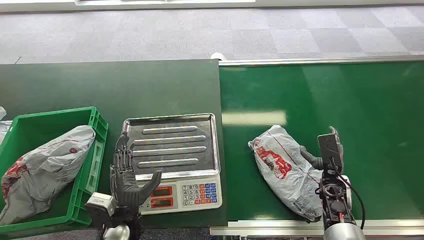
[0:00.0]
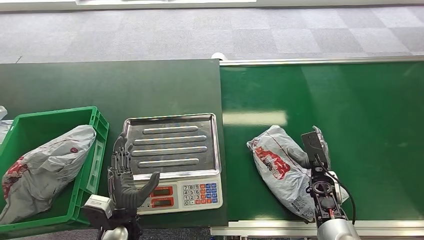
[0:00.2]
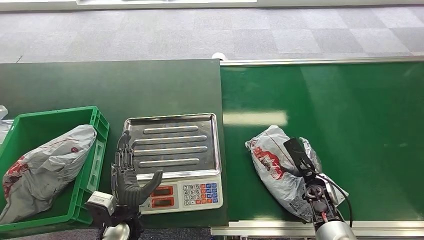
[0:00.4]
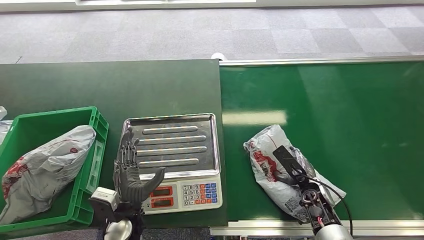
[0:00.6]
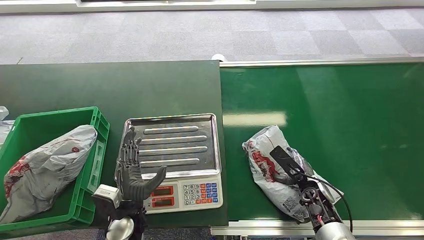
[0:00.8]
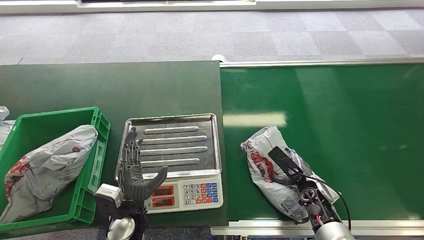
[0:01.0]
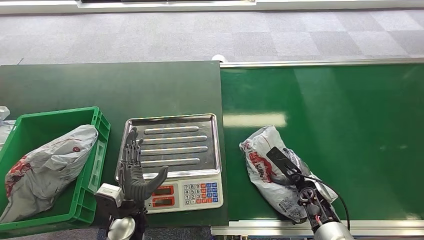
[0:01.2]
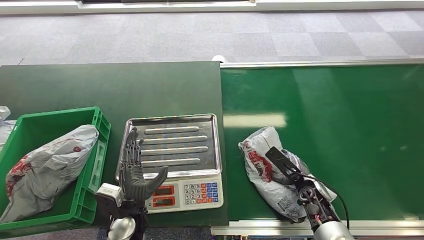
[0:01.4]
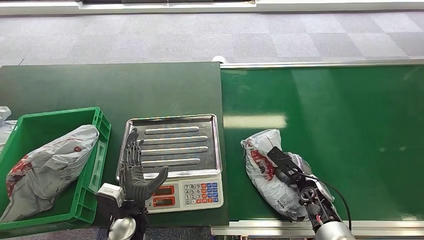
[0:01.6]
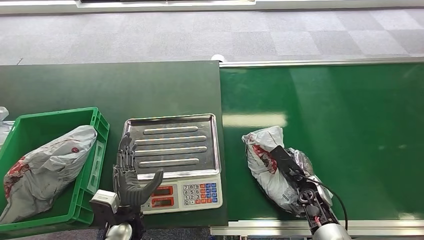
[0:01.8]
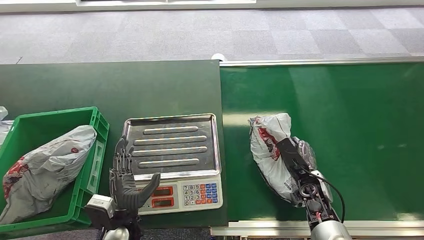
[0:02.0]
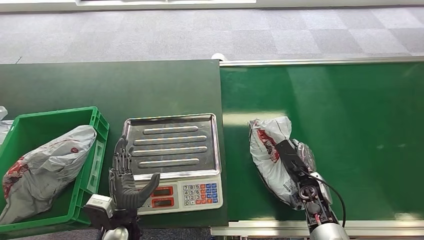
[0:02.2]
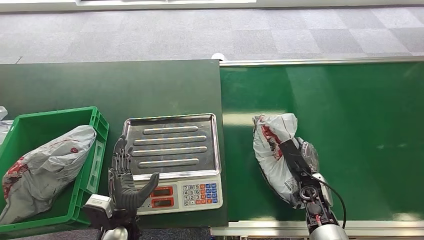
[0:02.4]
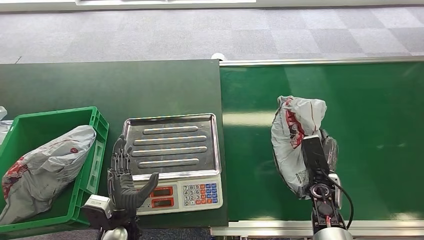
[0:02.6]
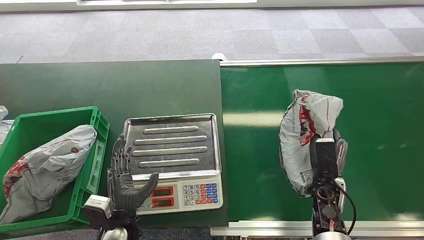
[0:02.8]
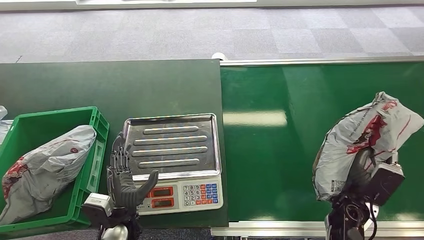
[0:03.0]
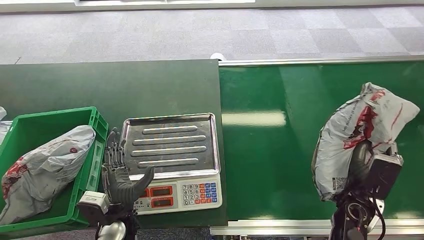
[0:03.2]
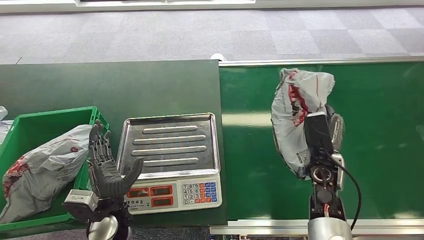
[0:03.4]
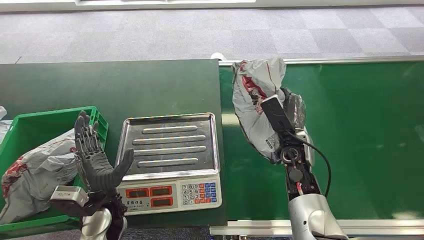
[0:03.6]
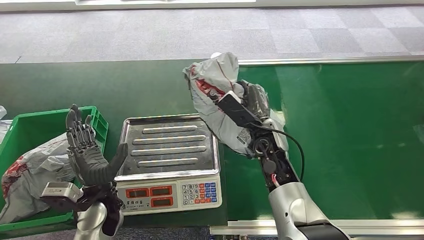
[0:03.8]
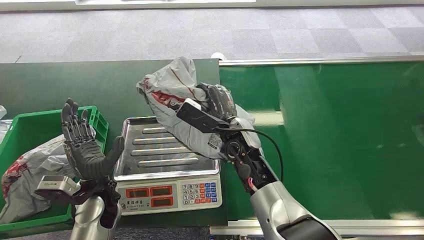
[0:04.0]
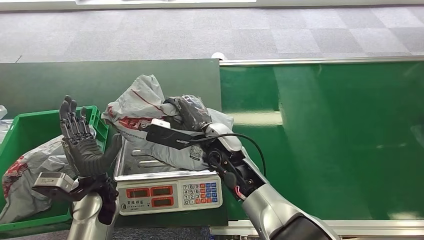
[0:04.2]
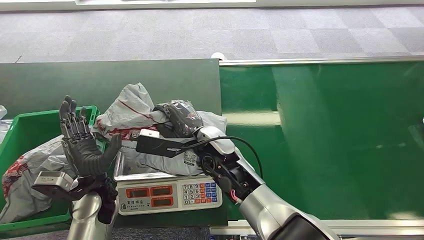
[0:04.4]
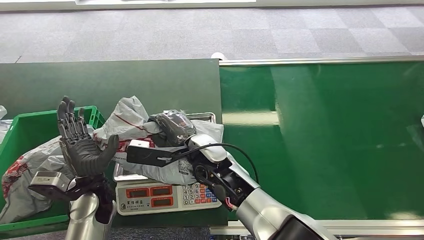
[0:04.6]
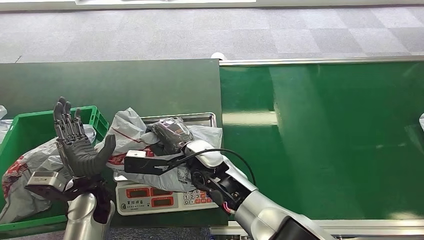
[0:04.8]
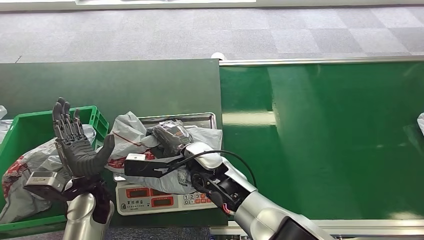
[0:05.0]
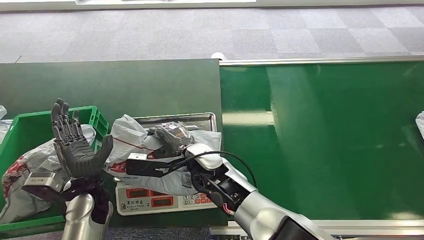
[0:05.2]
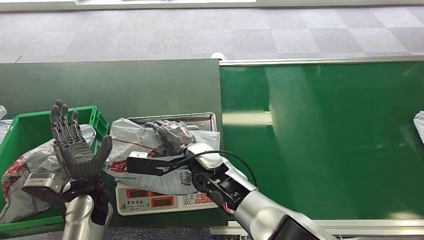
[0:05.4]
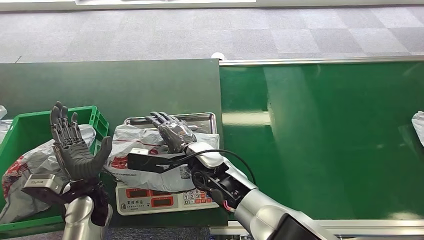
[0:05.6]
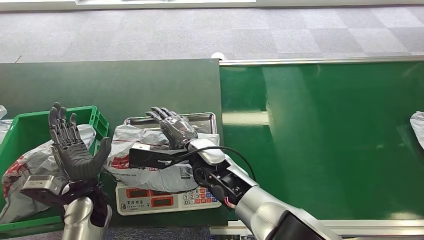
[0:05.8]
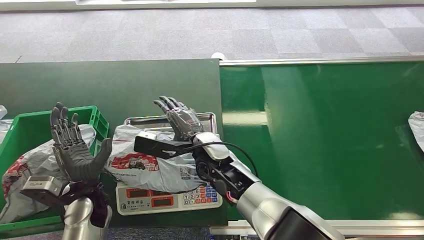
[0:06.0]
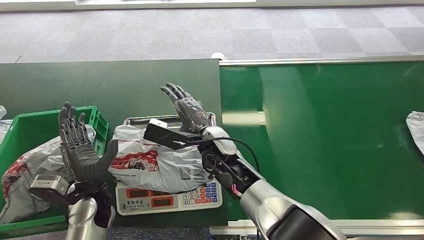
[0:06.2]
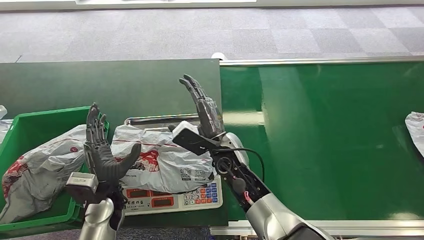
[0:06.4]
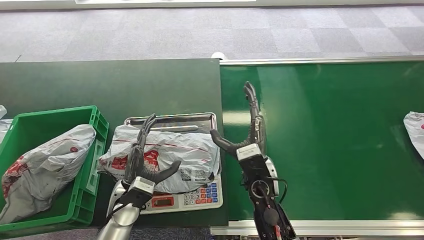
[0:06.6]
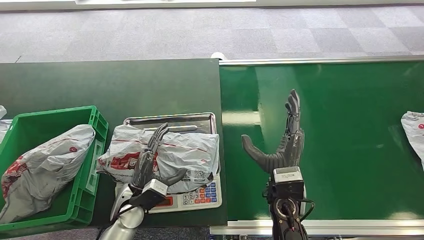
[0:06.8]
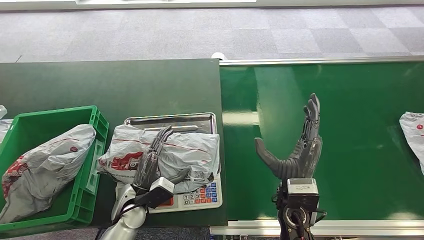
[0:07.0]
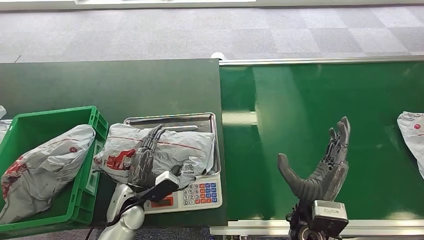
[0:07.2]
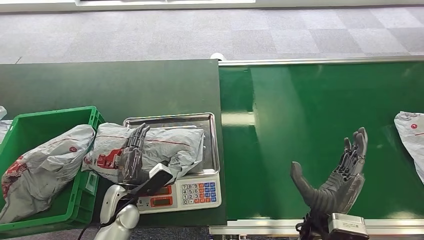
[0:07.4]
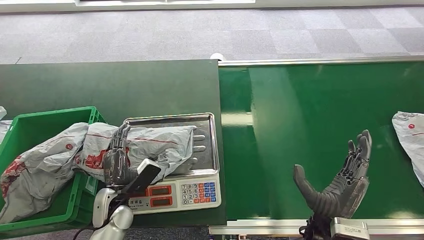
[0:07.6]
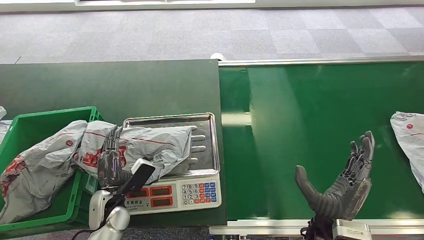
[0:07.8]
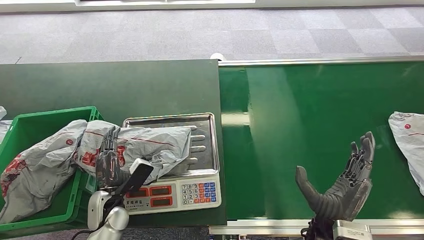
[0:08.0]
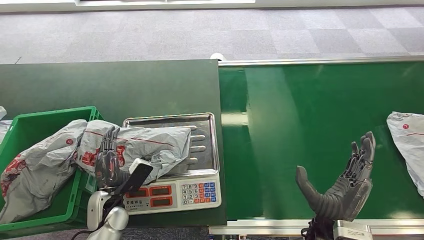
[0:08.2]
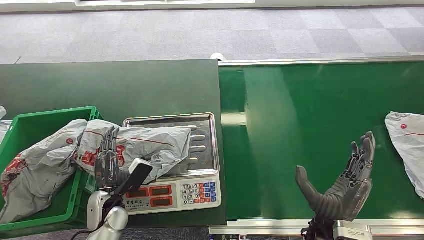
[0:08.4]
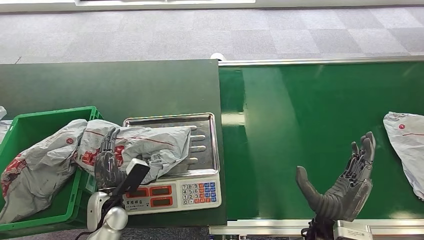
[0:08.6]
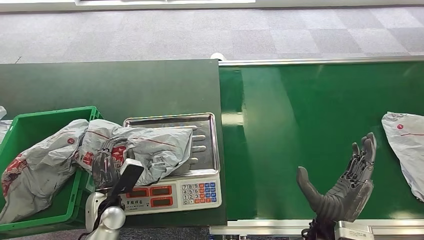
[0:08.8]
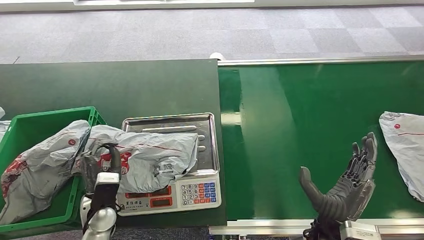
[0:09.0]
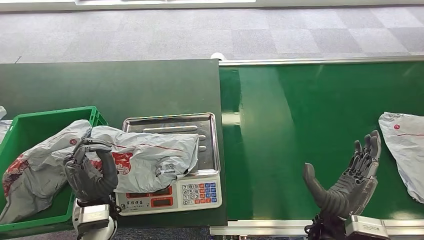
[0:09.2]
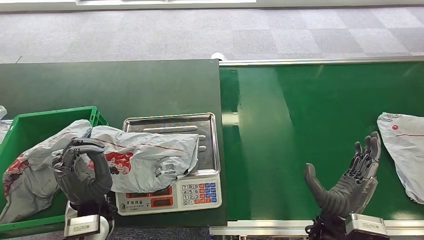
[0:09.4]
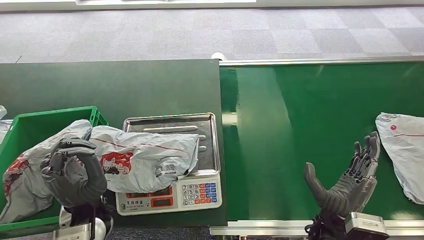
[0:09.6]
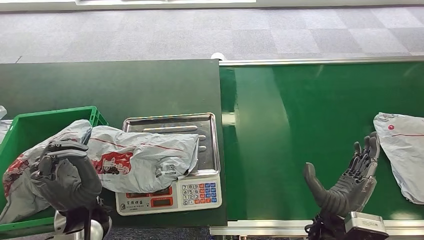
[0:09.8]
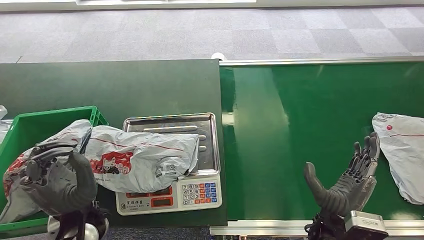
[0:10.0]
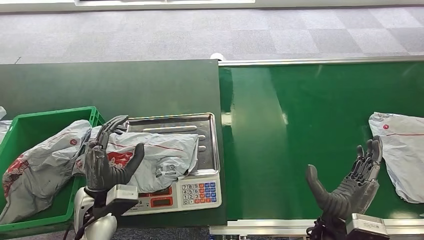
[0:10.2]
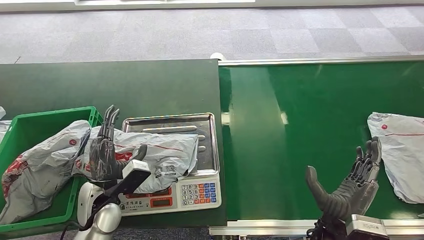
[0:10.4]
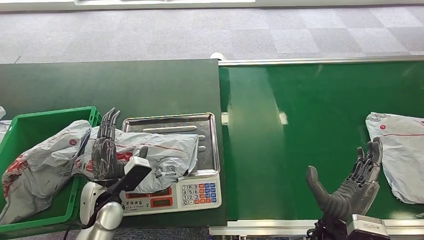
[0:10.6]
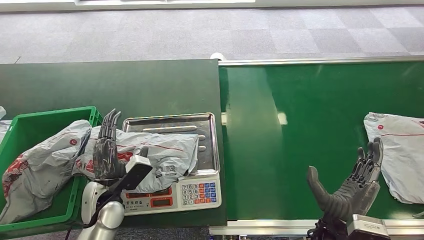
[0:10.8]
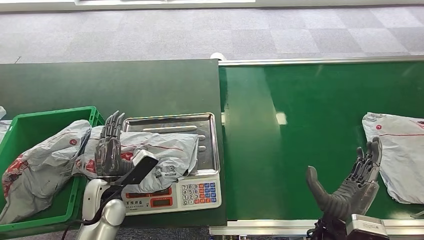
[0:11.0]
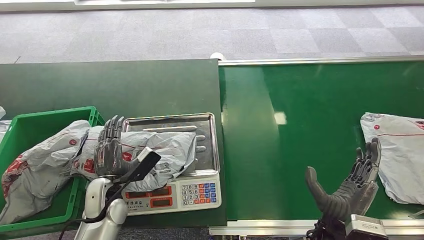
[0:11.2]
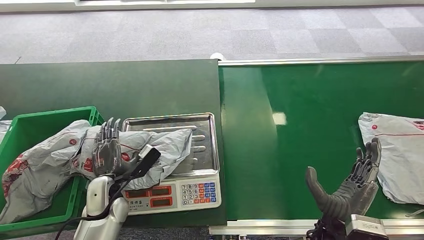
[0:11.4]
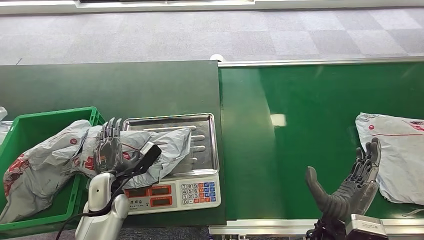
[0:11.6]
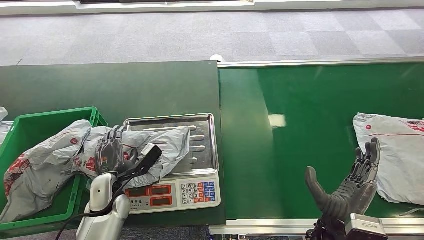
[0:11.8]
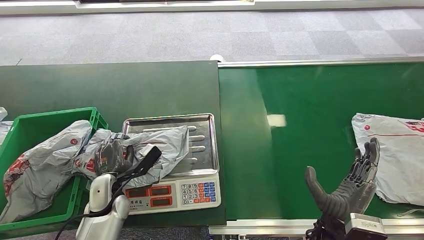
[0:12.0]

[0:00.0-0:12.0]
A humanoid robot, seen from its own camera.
Step, 0:00.0 to 0:04.0: Pick up the package from the conveyor belt.
Step, 0:04.4 to 0:06.4: Place the package onto the inbound machine.
0:04.4 to 0:06.0: The hands move only a little.
0:10.4 to 0:12.0: The left hand shifts by some 5 cm.

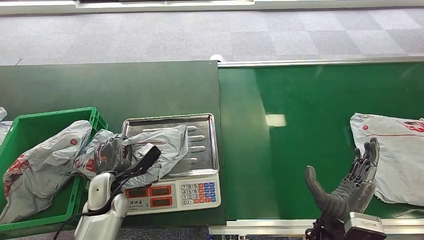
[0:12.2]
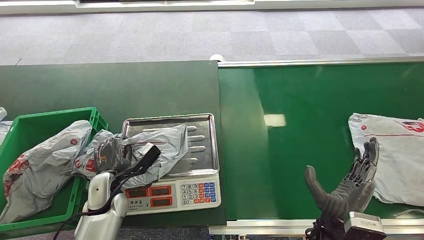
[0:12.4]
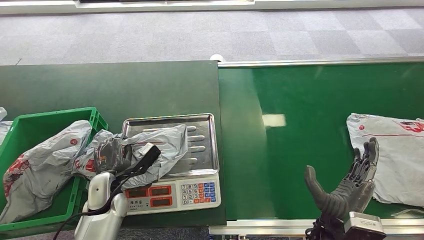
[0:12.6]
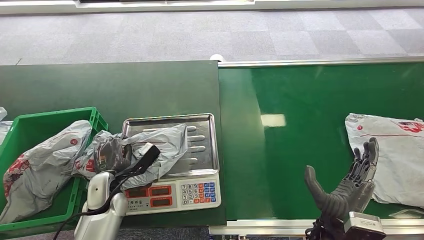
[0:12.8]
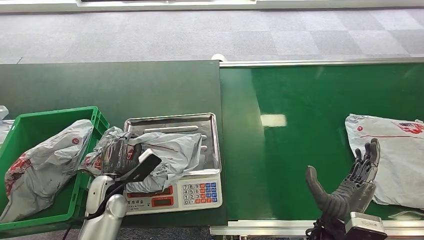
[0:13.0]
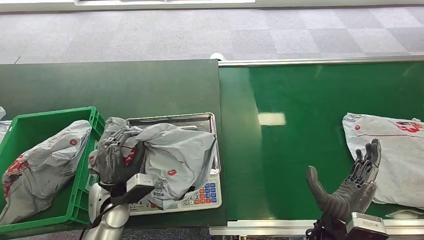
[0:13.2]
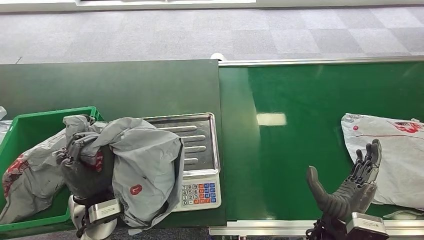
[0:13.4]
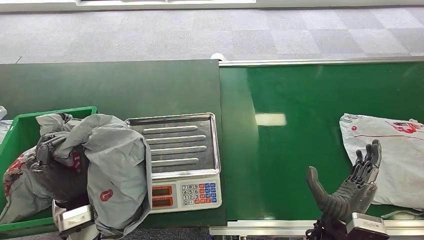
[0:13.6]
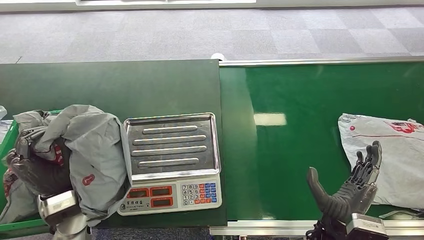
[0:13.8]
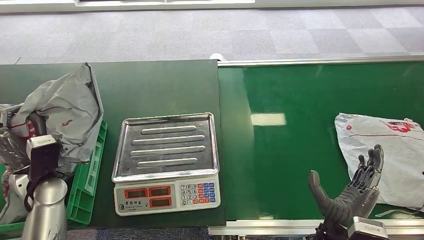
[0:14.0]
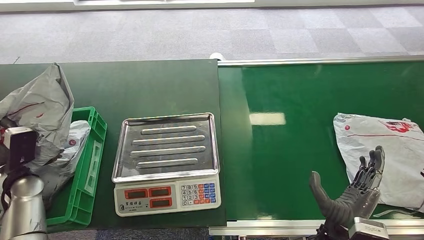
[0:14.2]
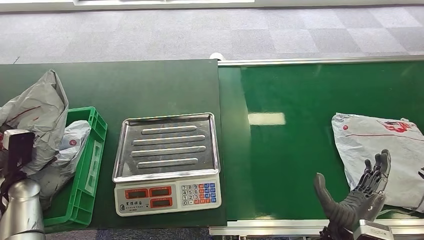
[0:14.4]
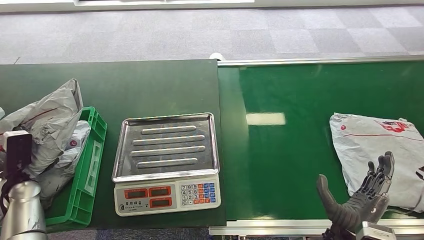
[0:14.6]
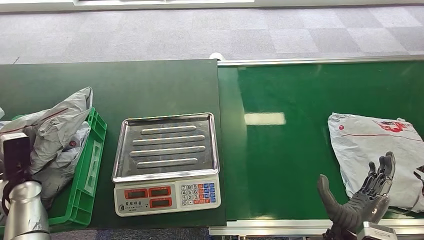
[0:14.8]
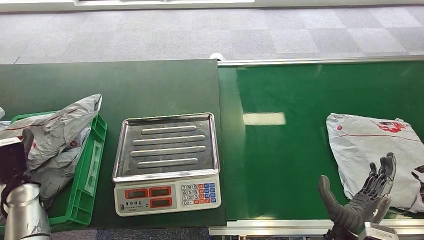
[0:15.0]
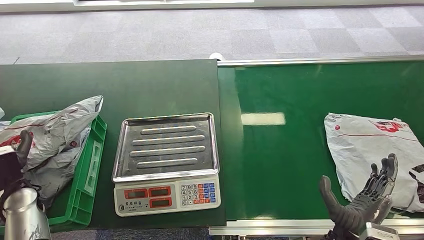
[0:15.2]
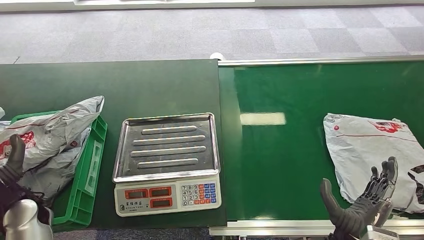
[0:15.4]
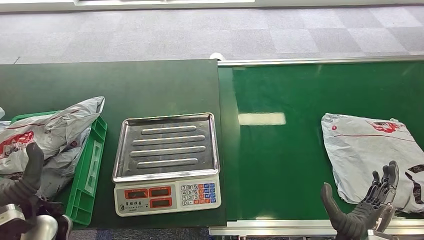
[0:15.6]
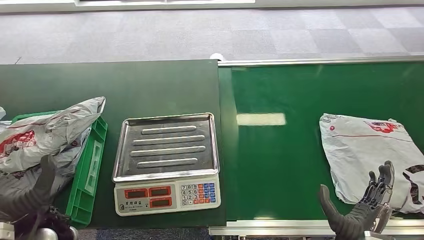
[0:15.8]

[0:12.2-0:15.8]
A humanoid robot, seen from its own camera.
Step, 0:14.2 to 0:15.6: Place the package into the parcel locker.
0:14.0 to 0:15.8: The left hand is displaced backward and to the right by approximately 10 cm.

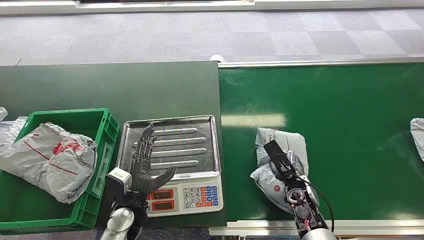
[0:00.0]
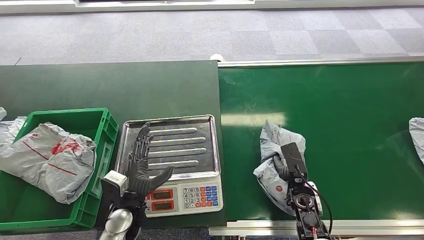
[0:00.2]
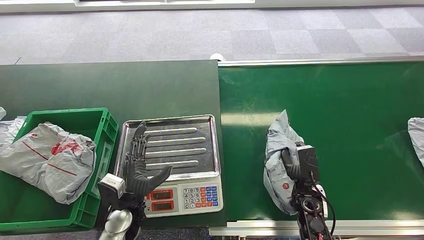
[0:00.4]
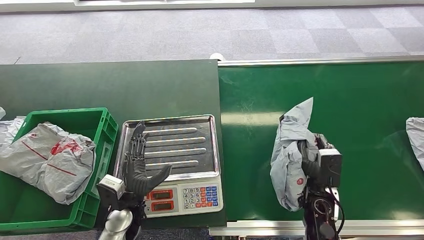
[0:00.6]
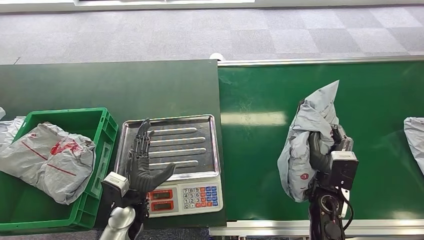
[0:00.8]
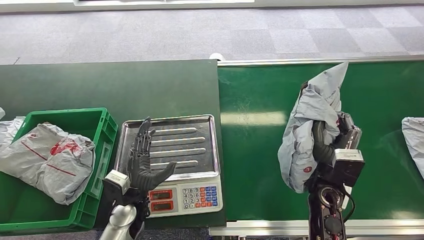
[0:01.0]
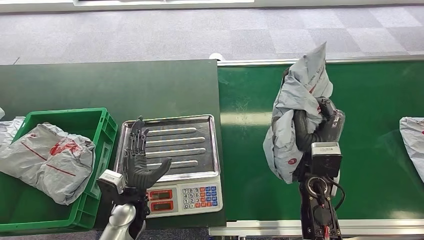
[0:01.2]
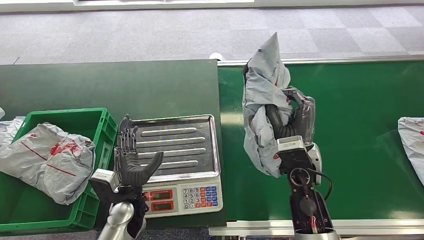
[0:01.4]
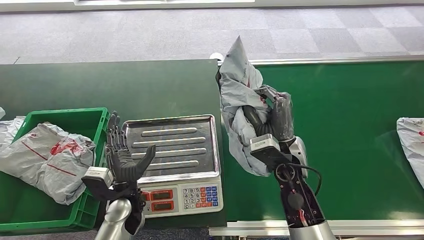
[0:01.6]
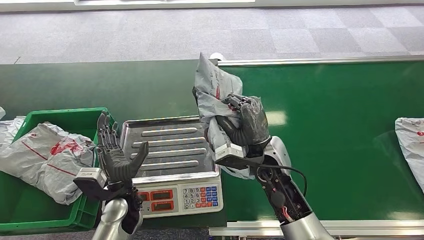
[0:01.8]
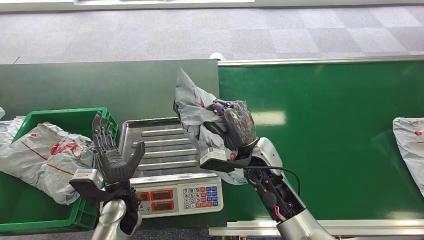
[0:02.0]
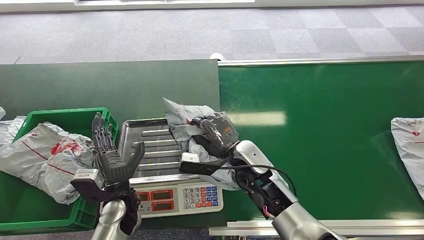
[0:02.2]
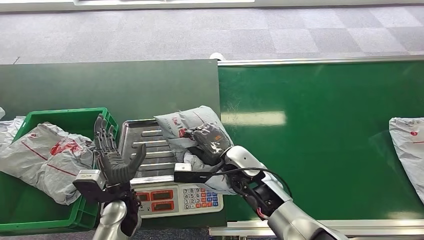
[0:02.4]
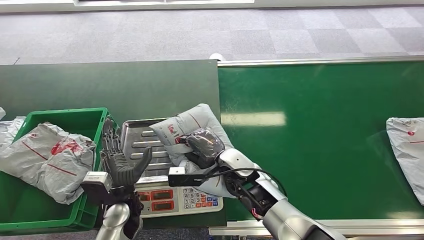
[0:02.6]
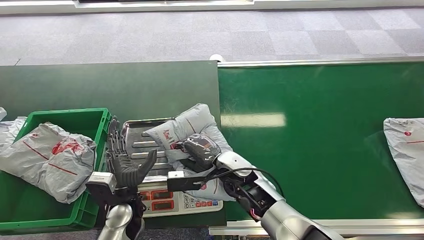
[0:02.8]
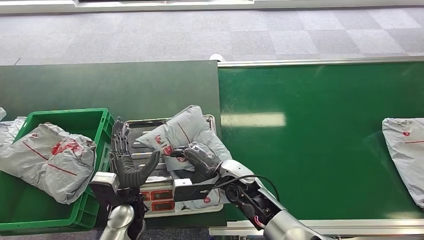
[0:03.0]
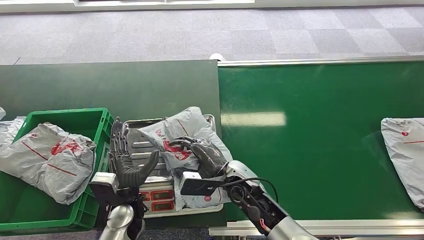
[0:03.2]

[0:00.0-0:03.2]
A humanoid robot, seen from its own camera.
Step, 0:00.0 to 0:01.6: Pick up the package from the conveyor belt.
